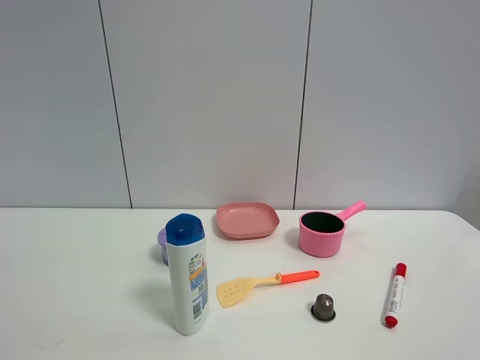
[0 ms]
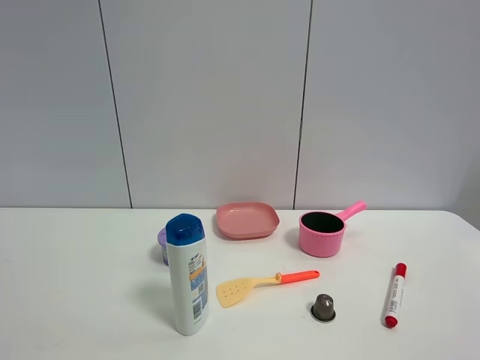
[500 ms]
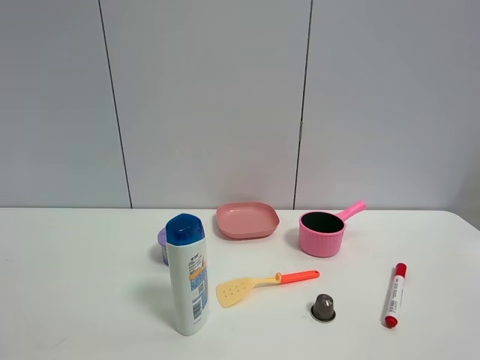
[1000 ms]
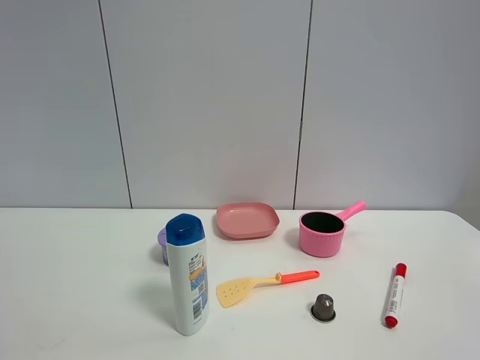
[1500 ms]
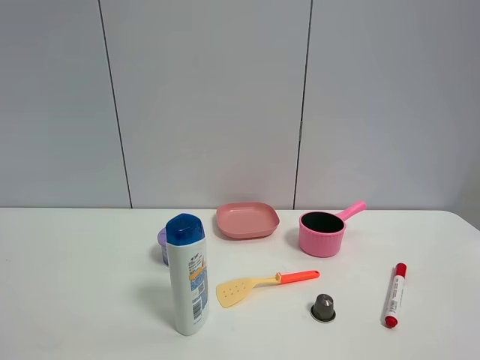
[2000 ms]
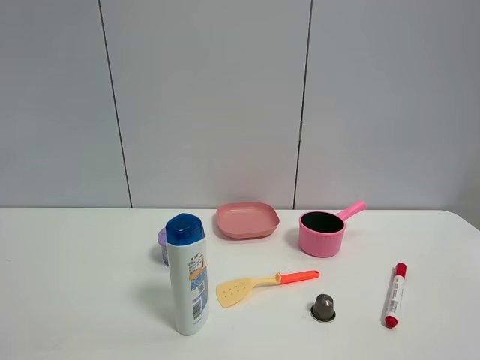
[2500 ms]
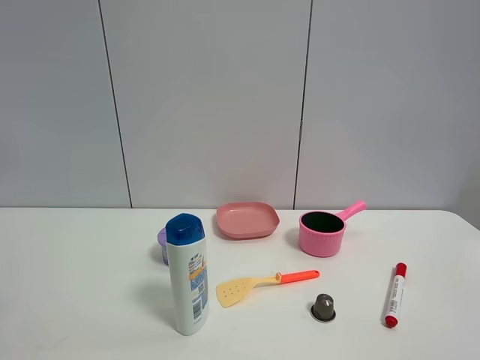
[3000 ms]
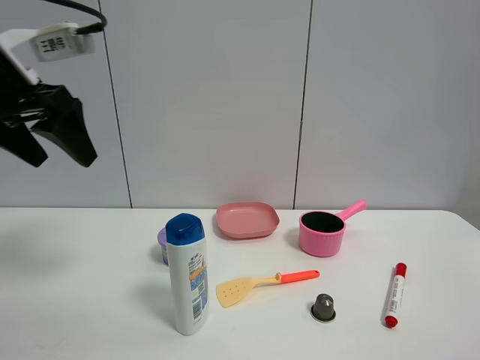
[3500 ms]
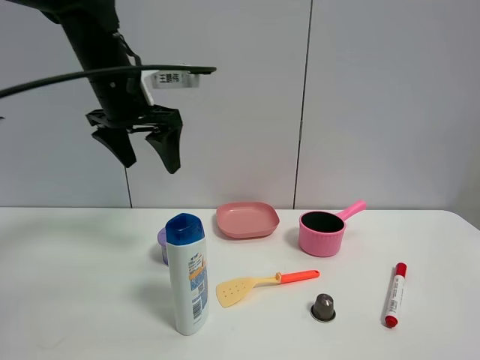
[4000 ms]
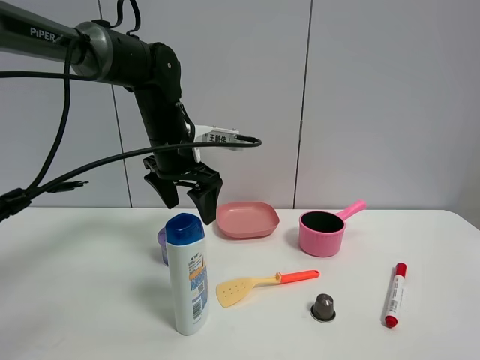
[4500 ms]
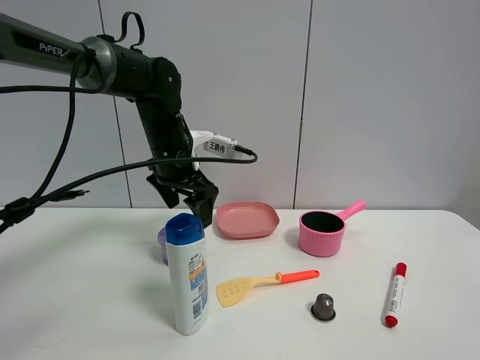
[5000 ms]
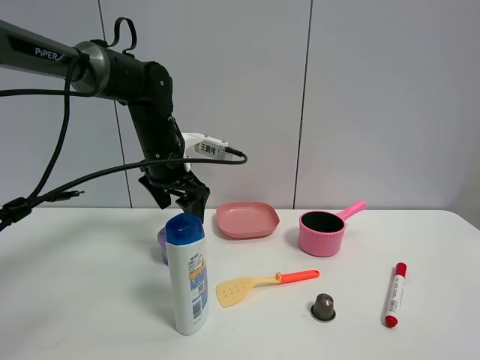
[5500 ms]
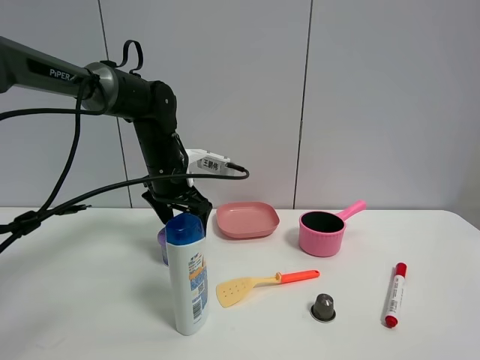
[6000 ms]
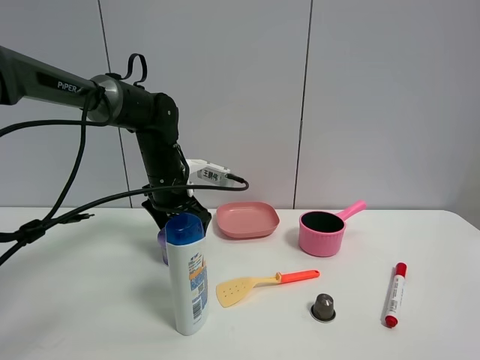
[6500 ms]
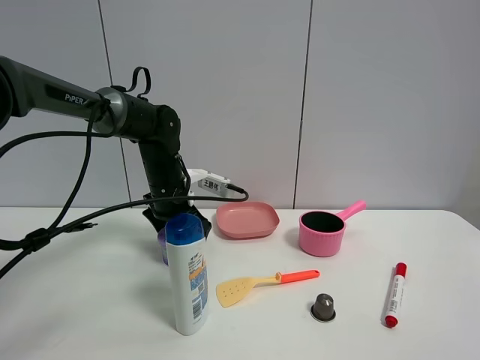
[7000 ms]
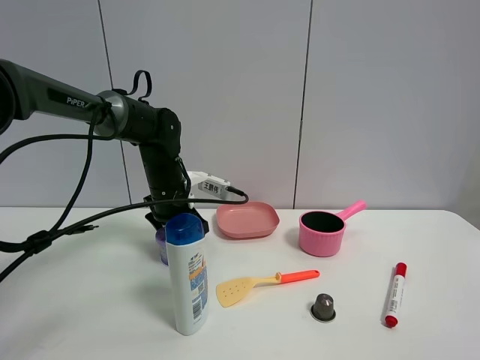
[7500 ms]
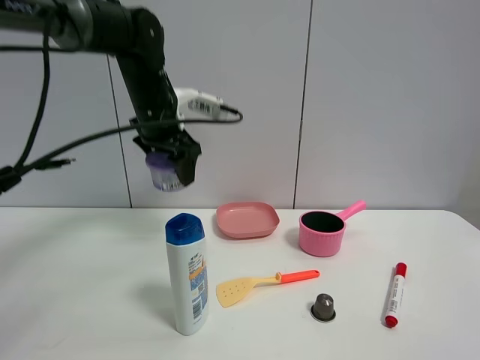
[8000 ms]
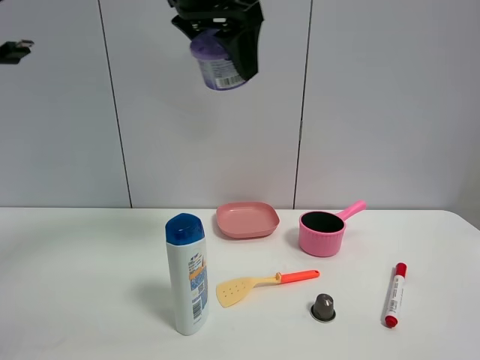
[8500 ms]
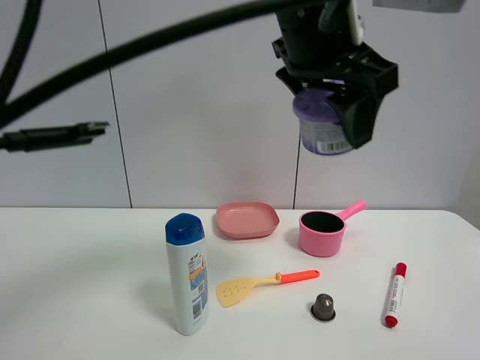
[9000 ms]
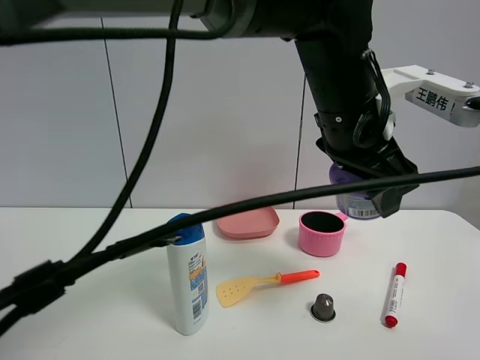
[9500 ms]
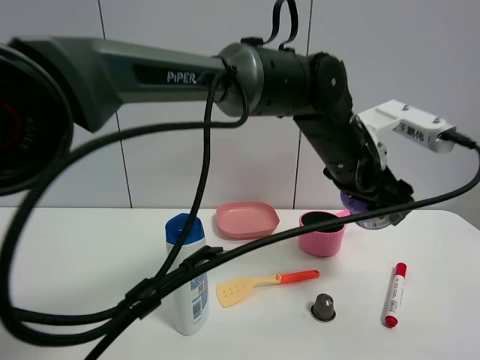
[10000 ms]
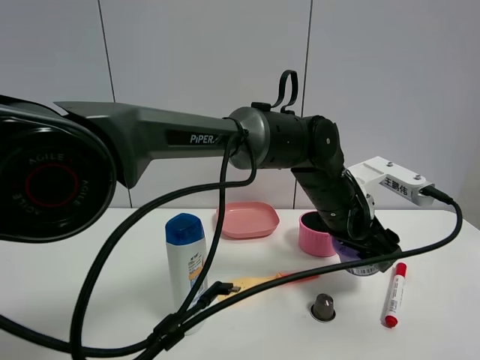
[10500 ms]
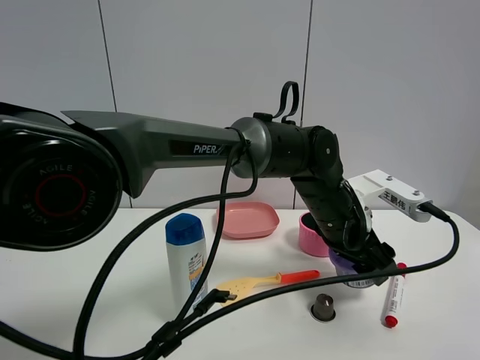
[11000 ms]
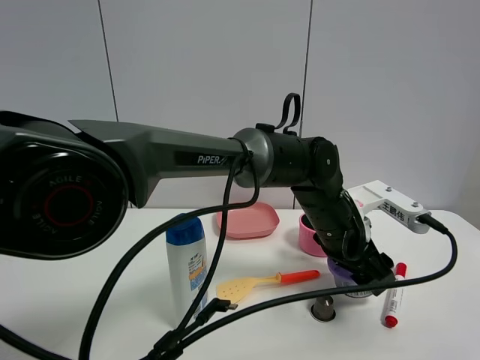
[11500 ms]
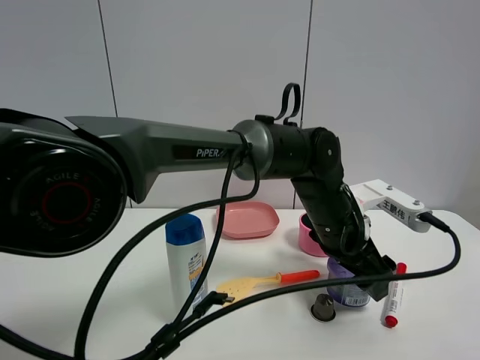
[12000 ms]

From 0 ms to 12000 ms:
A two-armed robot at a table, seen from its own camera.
Task of the whole recording: the gripper move the object.
Step, from 0 ms to 7500 ms: Grasp the Incense box with the left gripper.
Step, from 8000 ms to 12000 ms: Place the Incense box on the table with the left gripper.
From 2000 ms to 4000 ms: The left gripper is displaced forward and to the right by about 40 cm.
From 4000 ms to 6000 ms: The left gripper moves downward, some 10 cm.
From 6000 ms to 8000 ms: The left gripper shifts approximately 15 cm upward, and closes its fingers.
From 8000 ms to 10000 ms: The left gripper travels to the right by roughly 25 cm.
From 10000 ms to 12000 ms: The left gripper is displaced downward by approximately 5 cm, and opens.

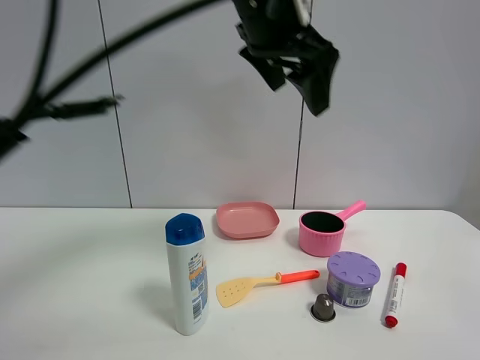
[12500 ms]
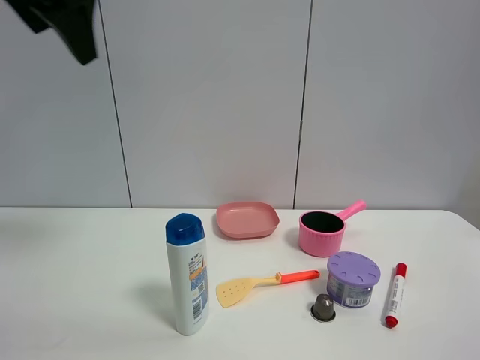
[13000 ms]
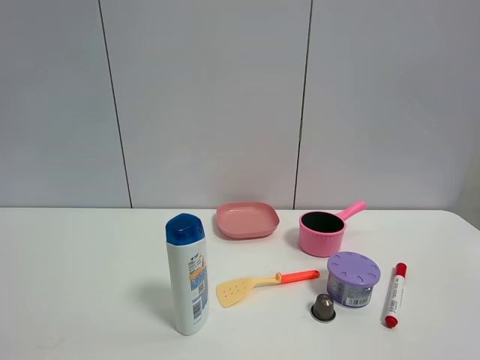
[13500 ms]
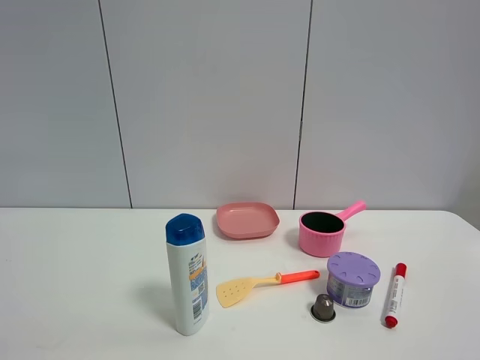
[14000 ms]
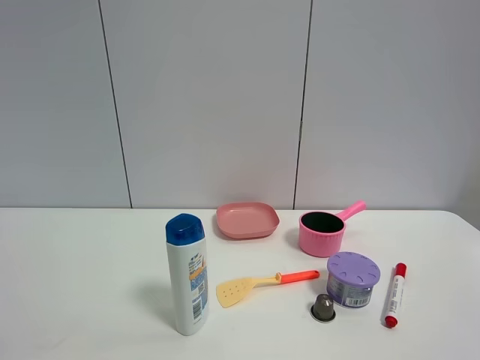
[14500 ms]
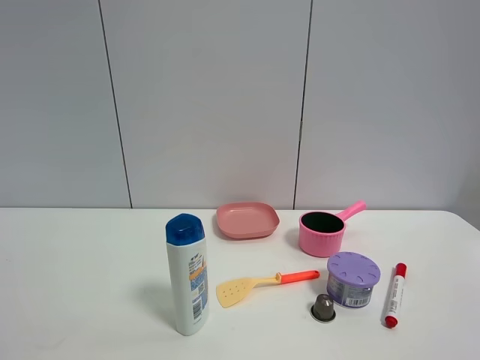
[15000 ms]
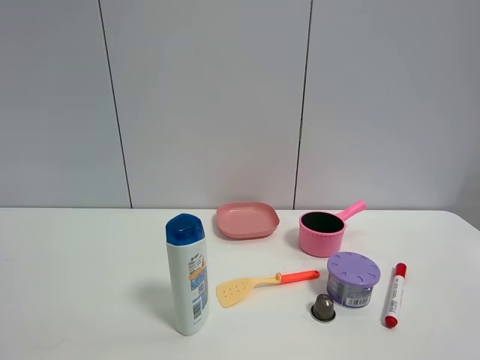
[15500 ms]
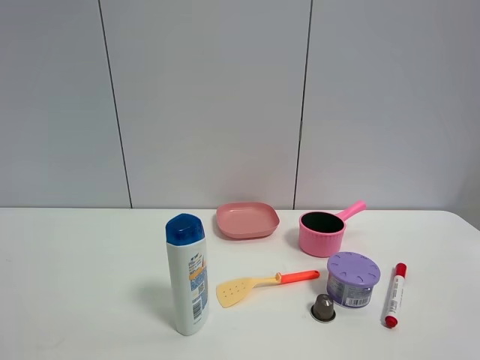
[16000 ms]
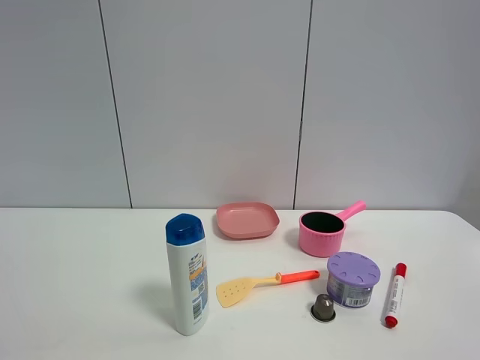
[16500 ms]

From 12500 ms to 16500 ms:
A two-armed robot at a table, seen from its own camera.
Task of the whole recording: the gripper move the object.
From 12500 ms to 14500 ms: The left gripper travels backward and to the left by roughly 50 cm.

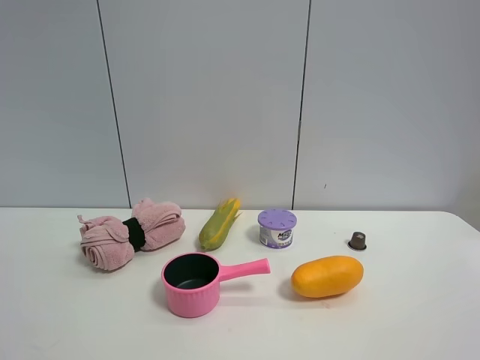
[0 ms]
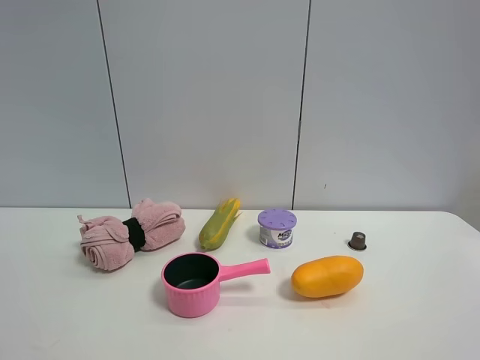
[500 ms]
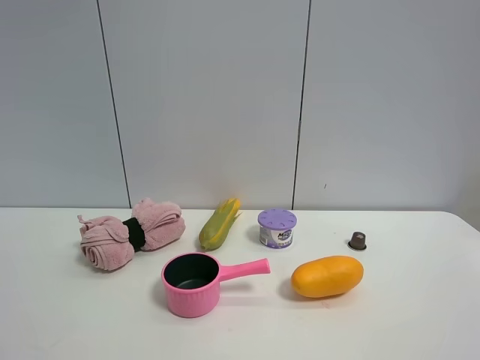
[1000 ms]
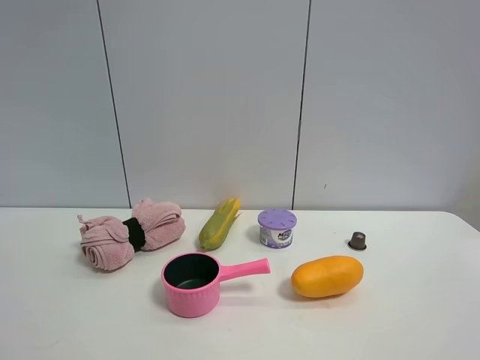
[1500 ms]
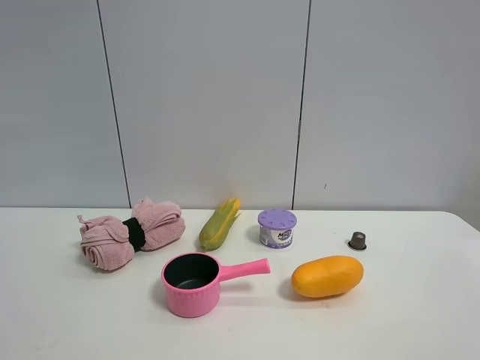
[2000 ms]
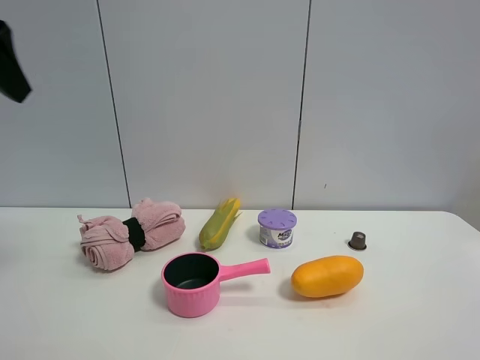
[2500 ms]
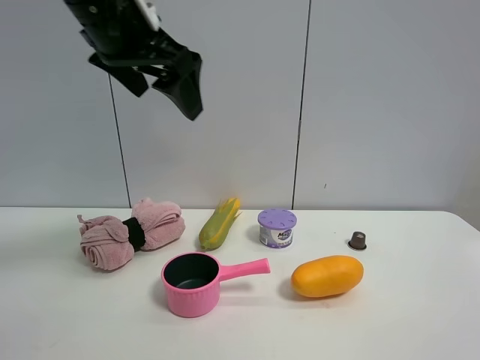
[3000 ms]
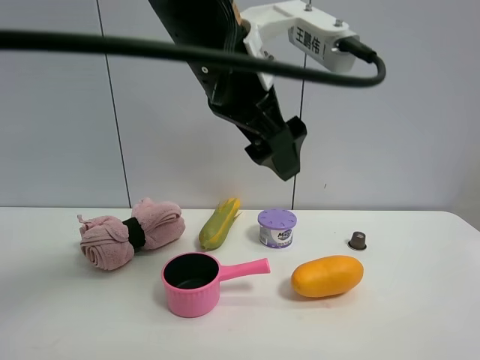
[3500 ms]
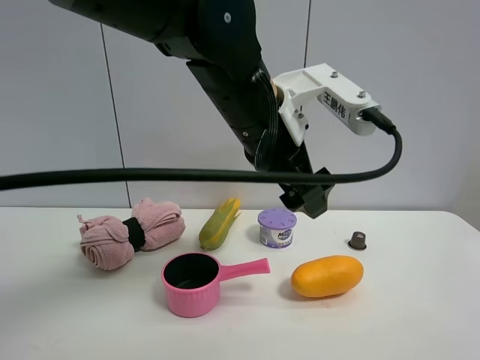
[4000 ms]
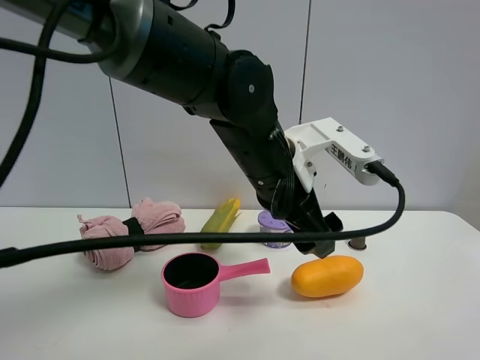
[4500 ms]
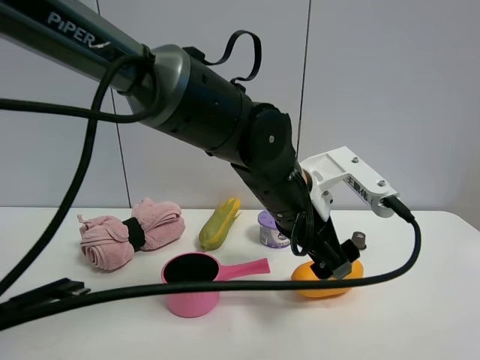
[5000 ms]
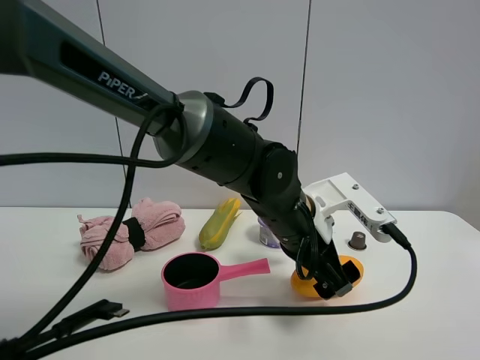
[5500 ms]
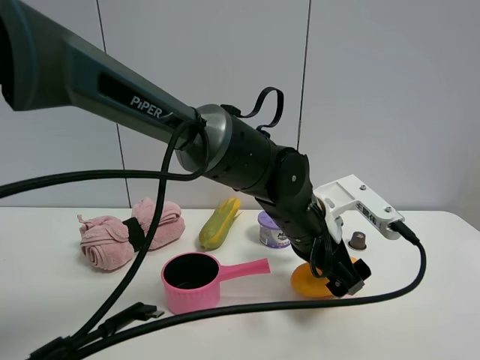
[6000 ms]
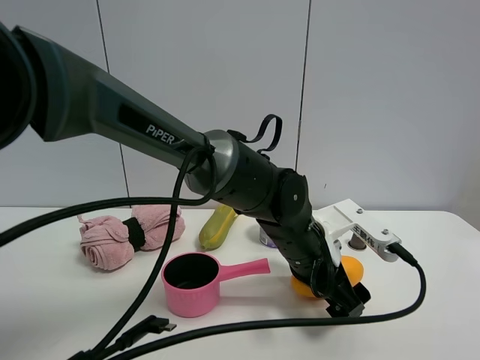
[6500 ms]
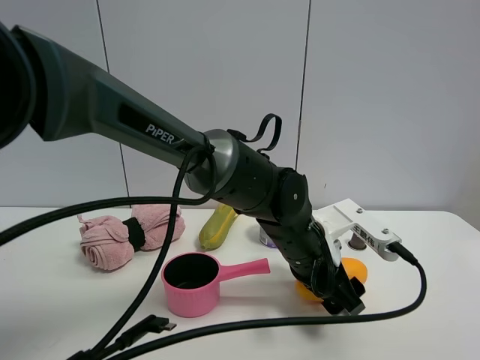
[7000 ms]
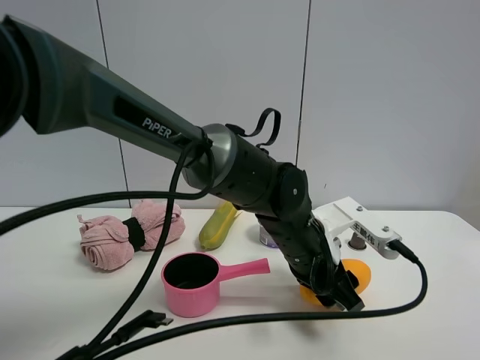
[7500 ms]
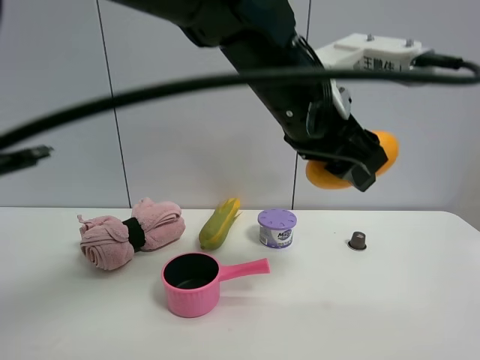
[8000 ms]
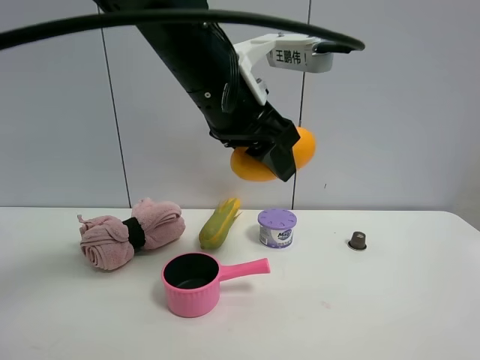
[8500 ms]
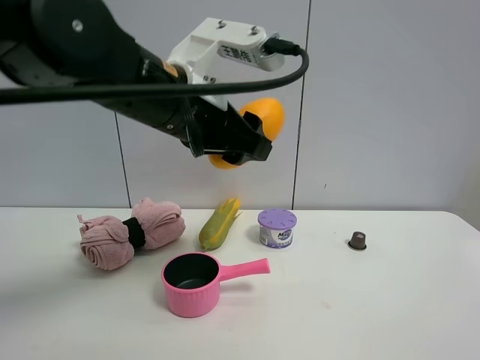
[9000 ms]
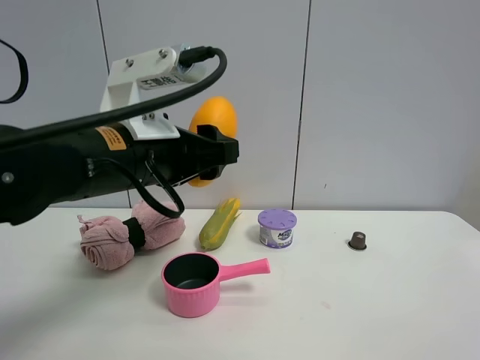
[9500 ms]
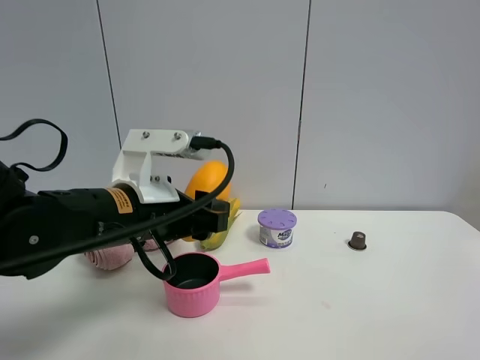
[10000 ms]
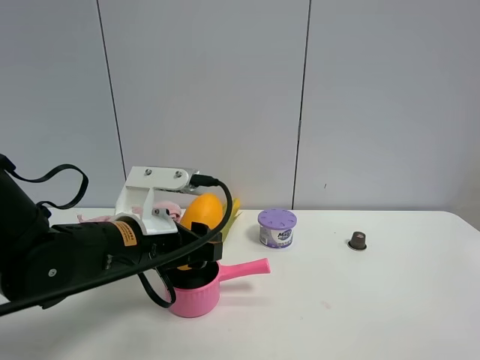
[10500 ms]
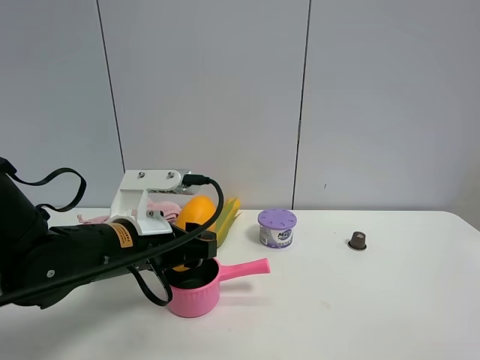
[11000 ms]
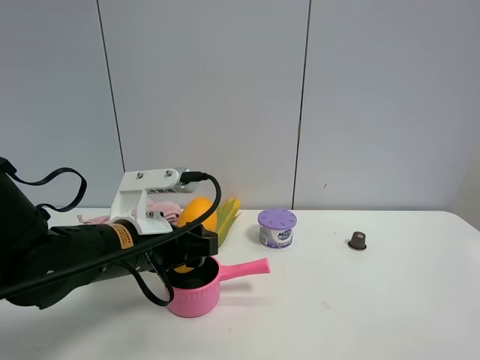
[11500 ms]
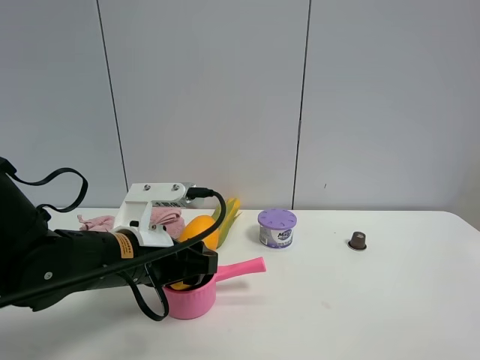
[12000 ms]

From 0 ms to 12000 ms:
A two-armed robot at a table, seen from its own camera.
Task of the whole recording: the gripper move the object.
Step, from 0 ms to 7000 ms: Grasp the mango with the left gripper.
From 2000 ms to 4000 ms: The left gripper travels to the right and forward by some 40 cm.
From 4000 ms to 6000 ms: The left gripper heads downward and to the right, covering roughly 15 cm.
From 6000 ms to 8000 ms: The left gripper moves upward, about 15 cm, and closes.
From 8000 ms to 10000 ms: The left gripper shifts roughly 20 cm to the left and downward.
From 10000 ms to 12000 ms: The left gripper is displaced downward by approximately 5 cm.
